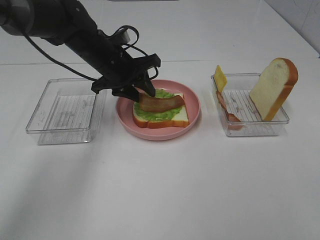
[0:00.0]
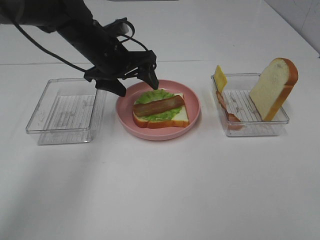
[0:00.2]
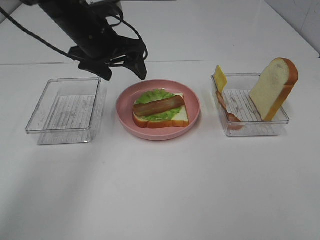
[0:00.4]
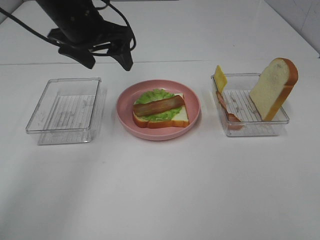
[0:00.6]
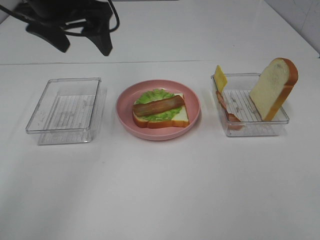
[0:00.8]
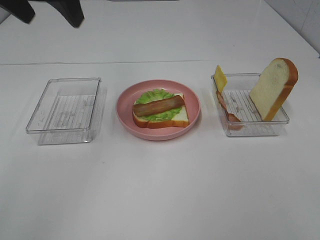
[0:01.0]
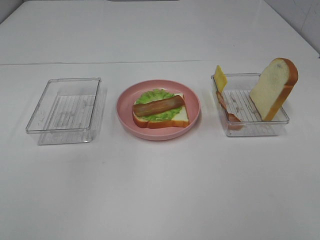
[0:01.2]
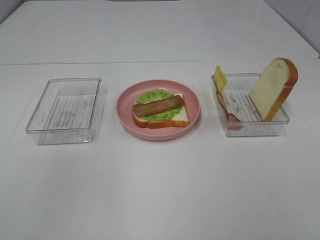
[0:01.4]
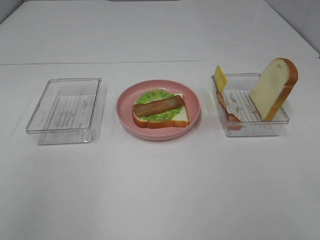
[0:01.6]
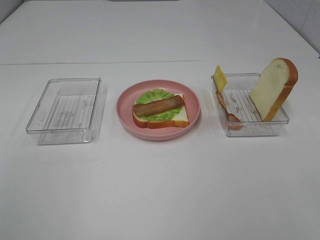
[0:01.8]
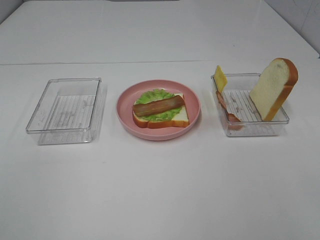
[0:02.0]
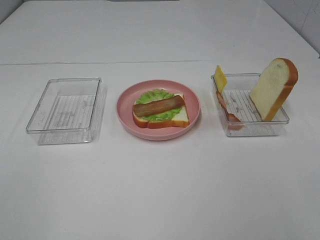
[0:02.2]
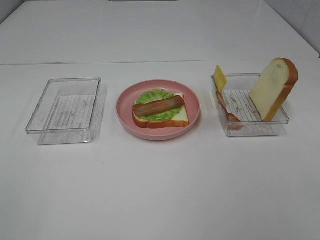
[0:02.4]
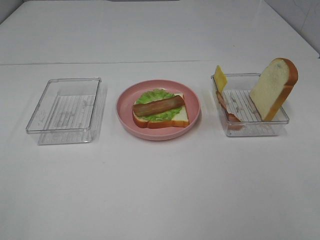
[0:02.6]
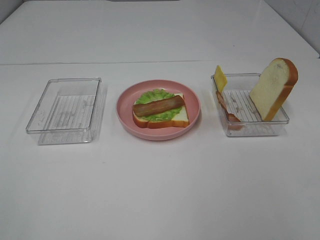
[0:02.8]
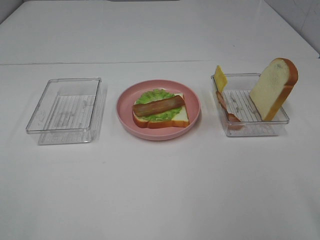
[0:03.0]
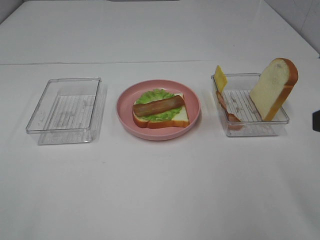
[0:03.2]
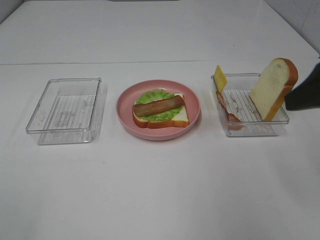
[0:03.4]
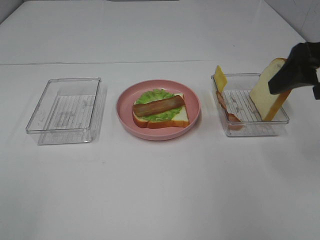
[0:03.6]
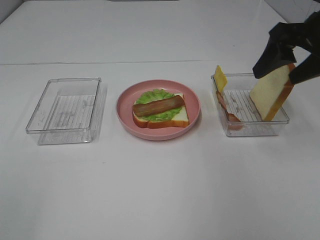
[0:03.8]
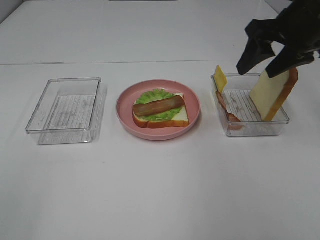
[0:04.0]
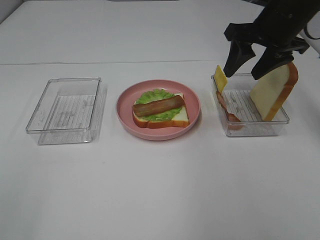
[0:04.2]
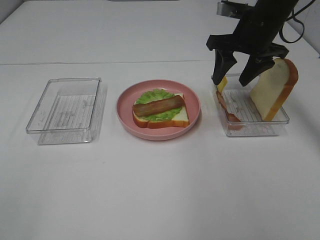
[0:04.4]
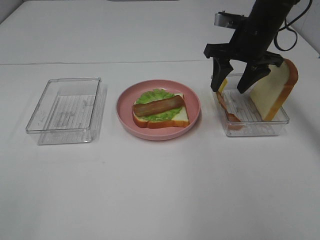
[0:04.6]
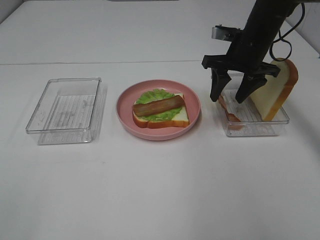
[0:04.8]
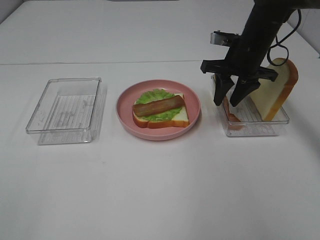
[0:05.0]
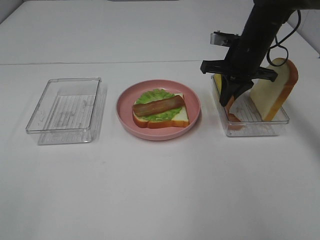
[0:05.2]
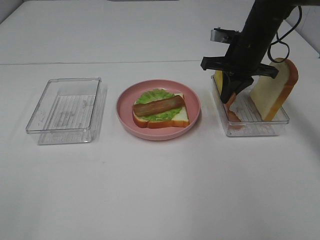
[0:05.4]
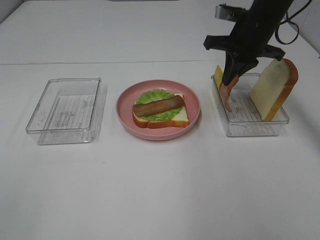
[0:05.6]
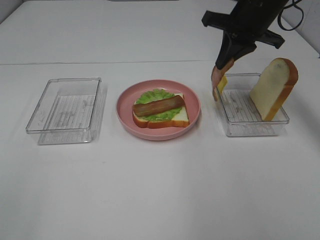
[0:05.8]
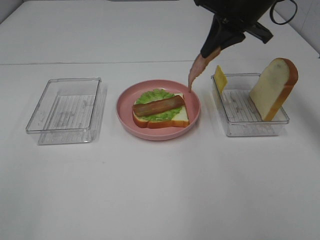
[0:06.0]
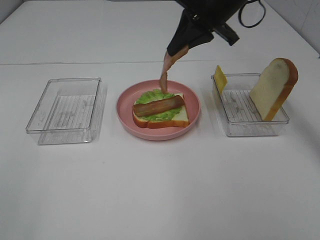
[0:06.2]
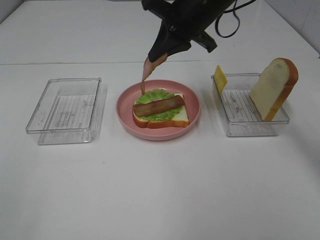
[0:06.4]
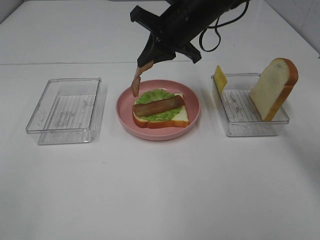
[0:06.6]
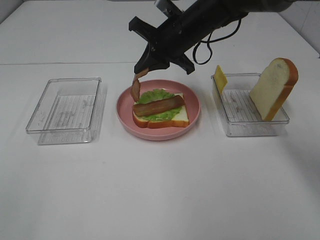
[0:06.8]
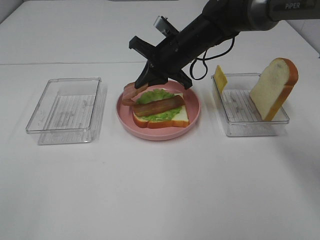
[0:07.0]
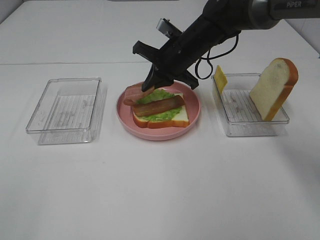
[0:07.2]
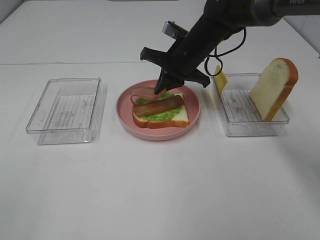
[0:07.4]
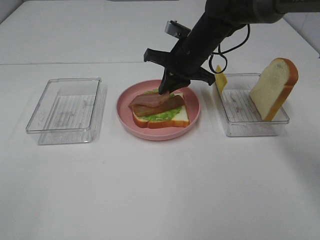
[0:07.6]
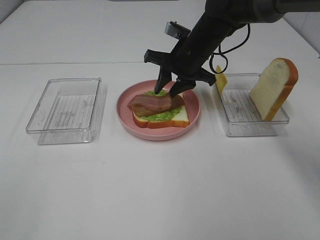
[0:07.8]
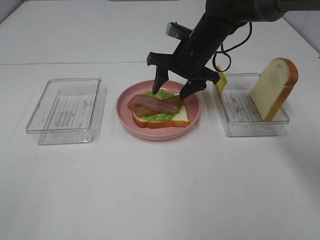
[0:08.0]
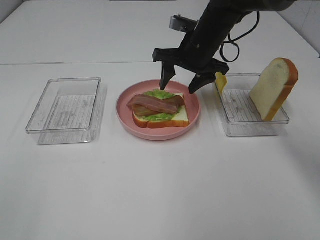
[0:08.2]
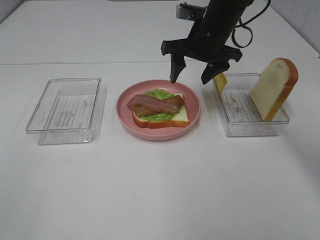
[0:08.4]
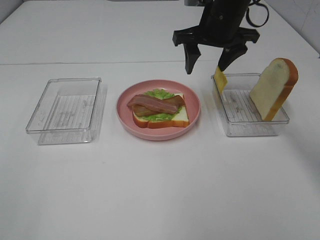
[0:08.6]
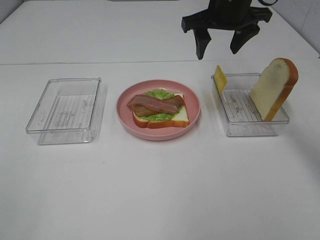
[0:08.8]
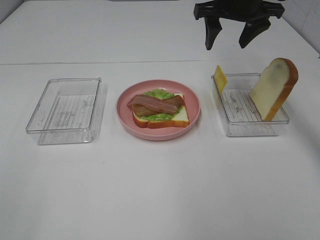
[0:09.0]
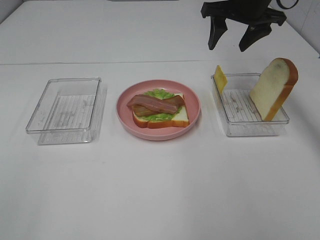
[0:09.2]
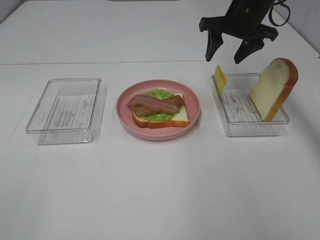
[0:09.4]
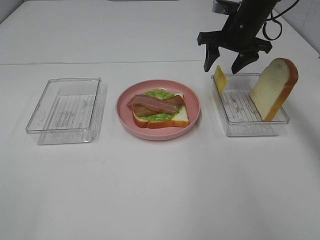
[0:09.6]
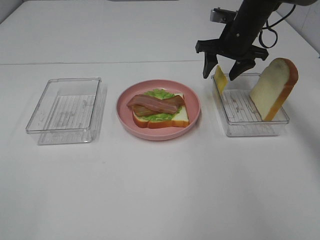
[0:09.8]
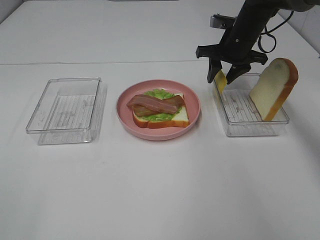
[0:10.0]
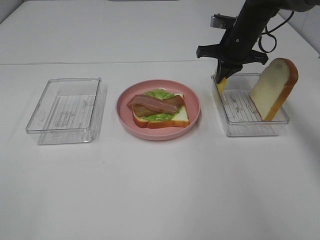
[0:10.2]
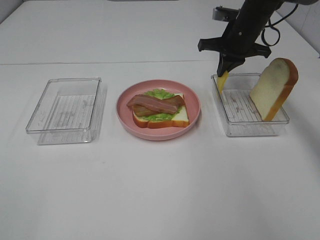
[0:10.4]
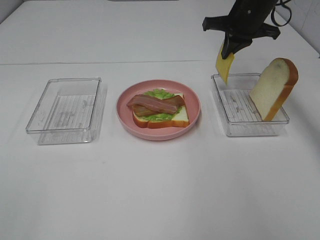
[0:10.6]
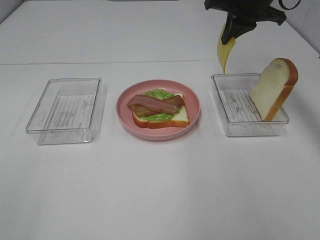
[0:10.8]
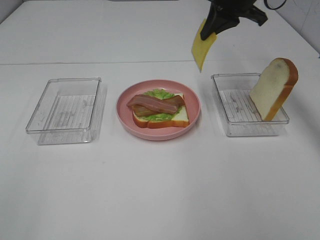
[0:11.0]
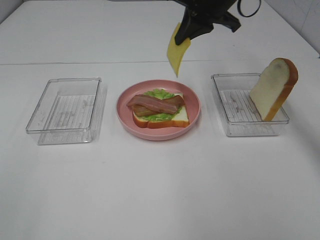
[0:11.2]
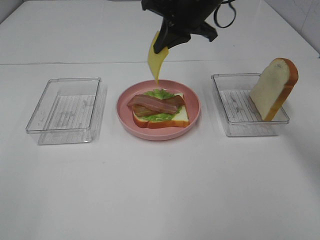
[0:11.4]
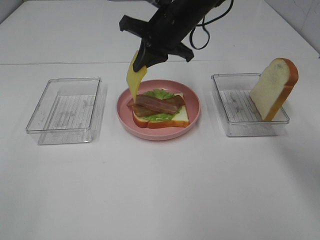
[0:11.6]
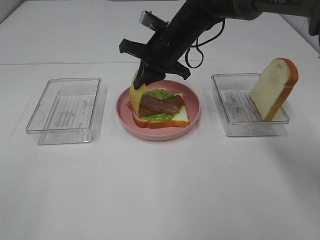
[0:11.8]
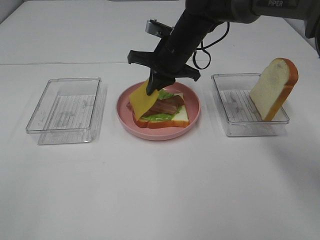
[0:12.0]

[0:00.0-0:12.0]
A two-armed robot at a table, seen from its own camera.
Task of the whole recording: Make sandwiches.
Step, 0:01.0 to 0:05.4: Right hand:grab the bacon.
Step, 0:05.6 to 0:08.2: Right hand:place bacon on bacon.
Step, 0:08.4 to 0:10.2: Right hand:grab the cheese slice.
0:00.0 to 0:01.6: The left gripper goes approximately 40 cm backward, upward and to the left, and opens its fingers.
0:03.0 to 0:04.4: The right gripper is displaced forward by some 35 cm.
0:04.4 to 0:06.0: The right gripper heads upward, covering about 5 cm, and closes its fingers.
0:06.0 to 0:07.6: The right gripper shifts some 15 cm downward and to the left.
0:07.6 to 0:09.0: The right gripper travels upward and to the right by approximately 15 cm, and opens its fingers.
0:09.0 to 0:10.4: The right gripper heads downward, covering approximately 10 cm, and closes.
0:10.4 to 0:12.0: The right gripper moves to the left, roughly 15 cm.

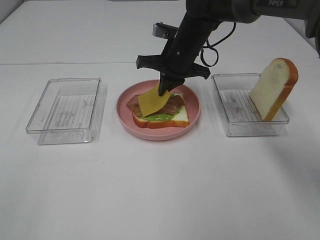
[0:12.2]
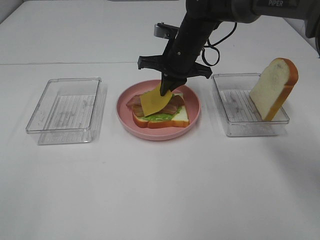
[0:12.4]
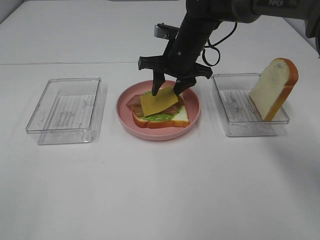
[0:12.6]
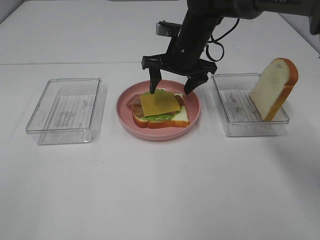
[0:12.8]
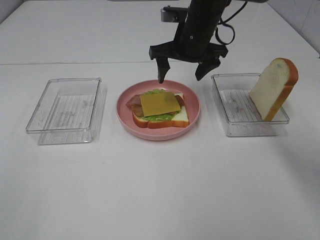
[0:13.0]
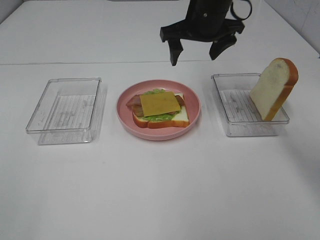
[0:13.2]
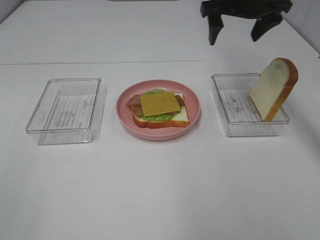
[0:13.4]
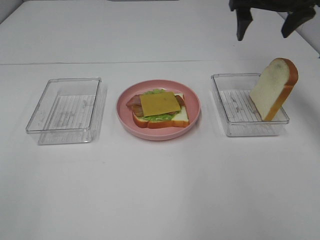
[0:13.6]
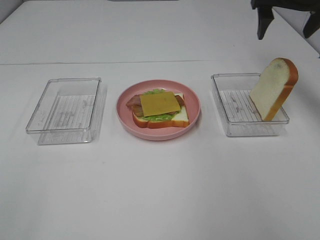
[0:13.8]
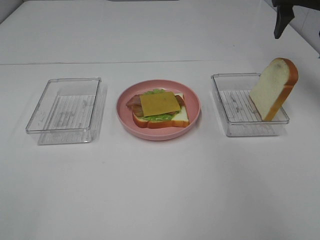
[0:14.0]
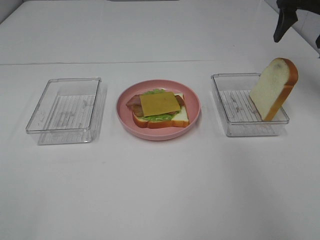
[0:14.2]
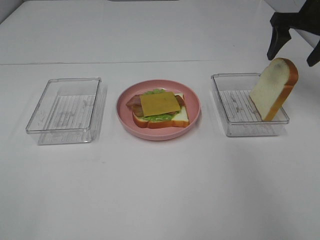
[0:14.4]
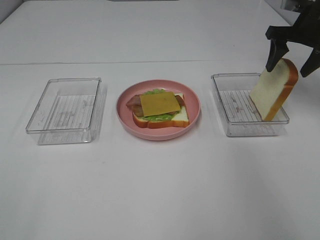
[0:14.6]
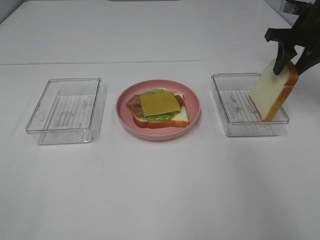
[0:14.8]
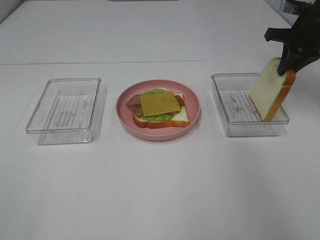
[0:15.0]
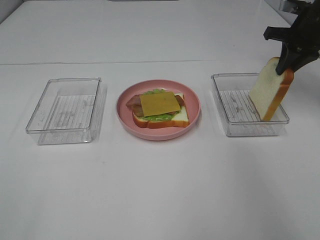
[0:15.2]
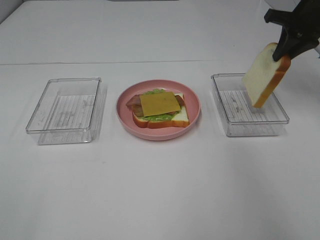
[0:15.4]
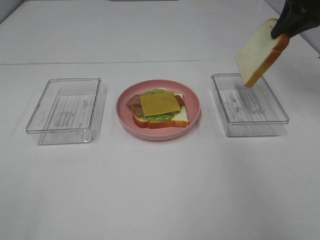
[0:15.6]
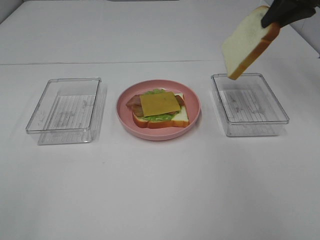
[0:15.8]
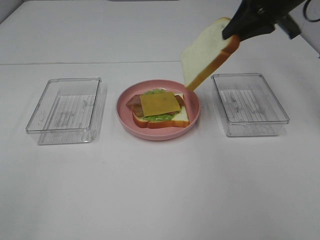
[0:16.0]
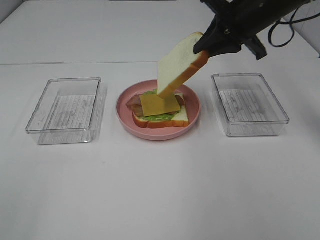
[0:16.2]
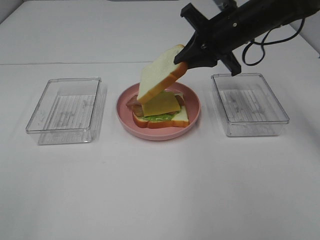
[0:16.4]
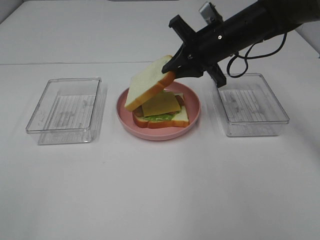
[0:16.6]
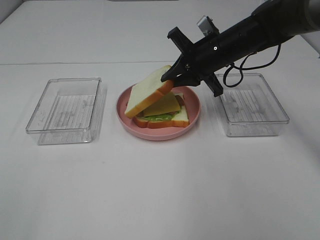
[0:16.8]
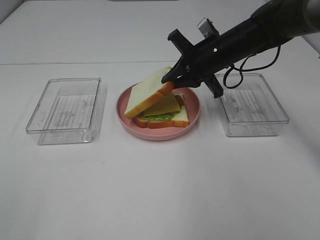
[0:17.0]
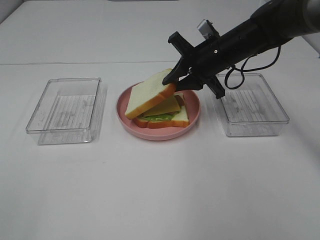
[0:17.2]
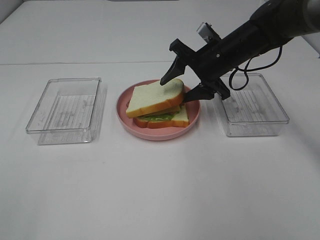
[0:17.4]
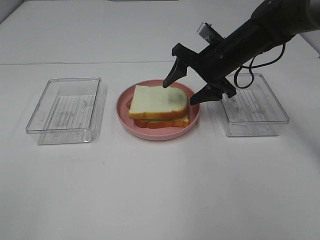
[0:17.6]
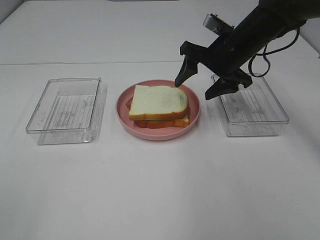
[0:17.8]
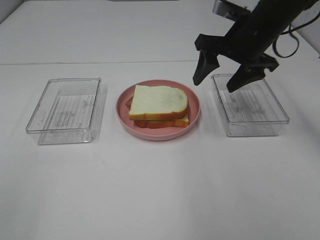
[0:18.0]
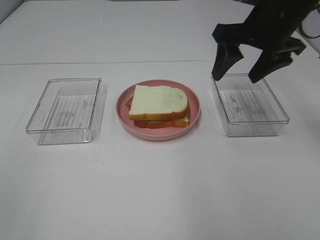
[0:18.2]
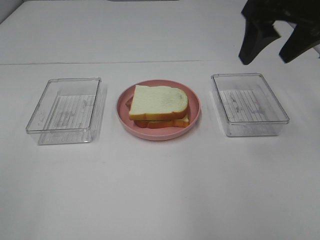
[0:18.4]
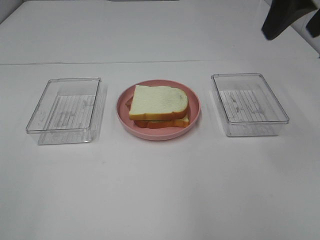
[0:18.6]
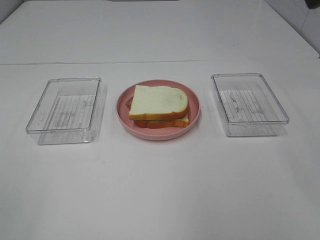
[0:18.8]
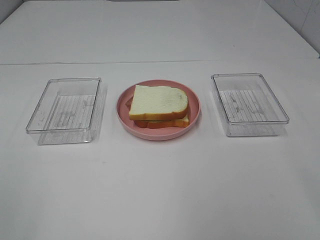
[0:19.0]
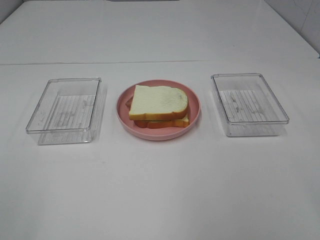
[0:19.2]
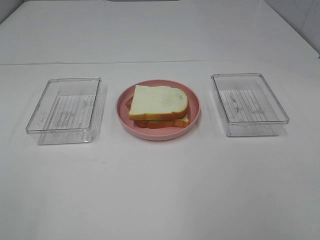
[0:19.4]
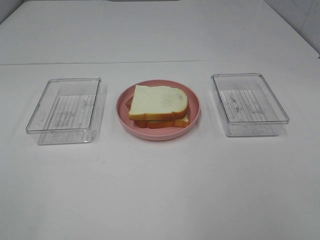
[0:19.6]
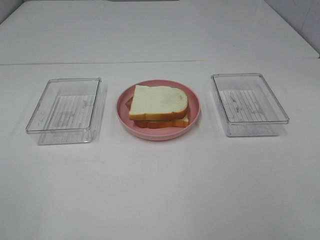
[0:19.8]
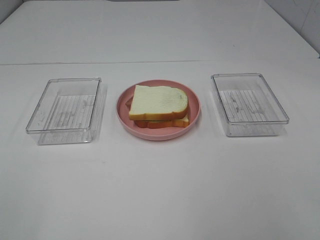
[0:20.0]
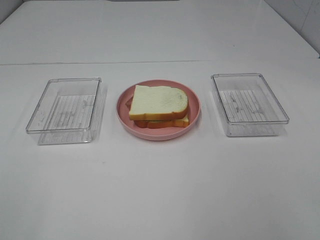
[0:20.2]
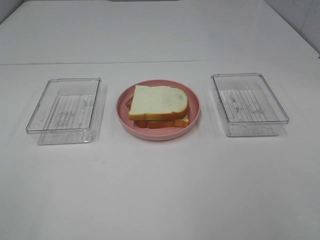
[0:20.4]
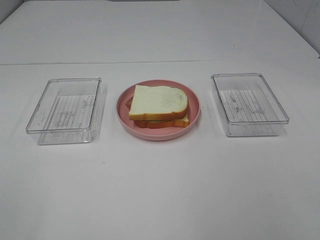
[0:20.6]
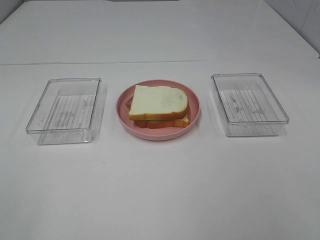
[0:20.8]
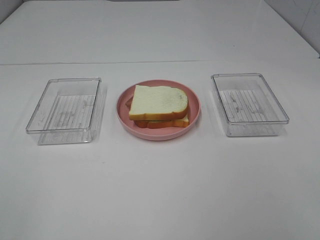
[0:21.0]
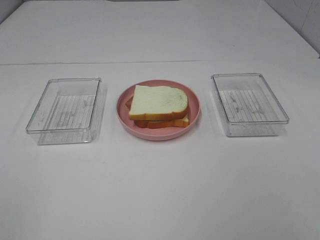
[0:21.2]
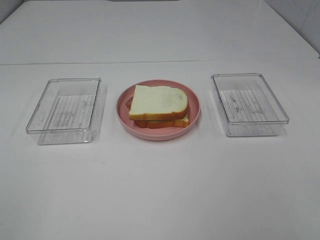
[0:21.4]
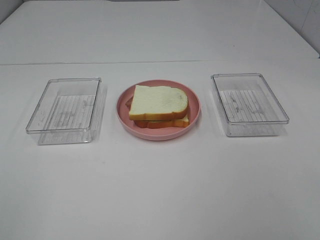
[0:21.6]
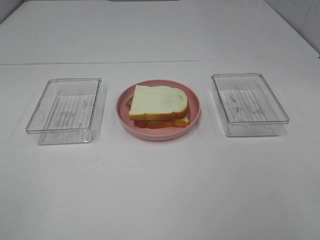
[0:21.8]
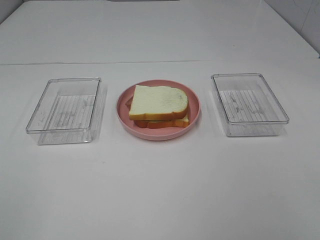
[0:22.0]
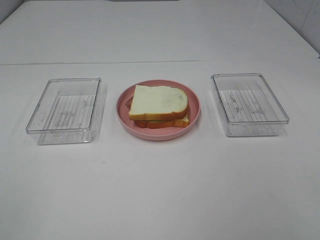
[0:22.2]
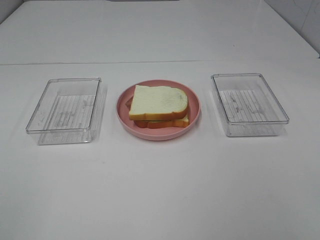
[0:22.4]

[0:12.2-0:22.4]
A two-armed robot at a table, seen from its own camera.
Task of the whole recording: Make sandwiches.
Step, 0:13.2 to 0:15.0: Right hand:grab the bread slice.
Step, 0:15.2 to 0:18.0: Right hand:place the bread slice on the cheese slice.
0:12.2 to 0:13.6: The right gripper travels to the right and upward by some 20 cm, and opens up.
0:13.6 to 0:15.2: The right gripper is displaced to the right and downward by some 10 cm, and closes up.
0:15.2 to 0:16.6: The right gripper moves to the left, about 15 cm.
0:16.6 to 0:18.0: The right gripper ends up about 5 cm from where it was, and opens up.
0:18.0 to 0:19.4: The right gripper shifts some 35 cm backward.
